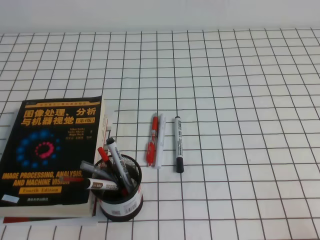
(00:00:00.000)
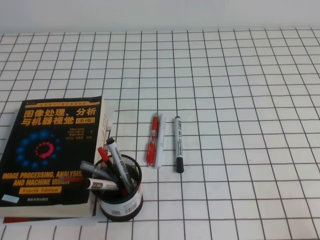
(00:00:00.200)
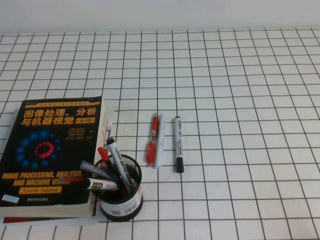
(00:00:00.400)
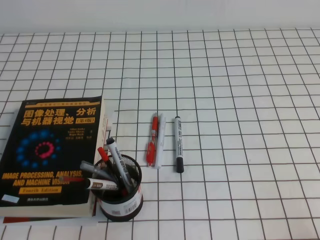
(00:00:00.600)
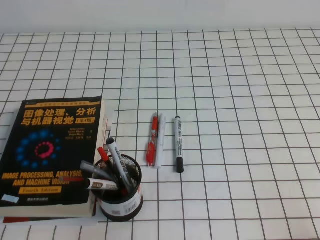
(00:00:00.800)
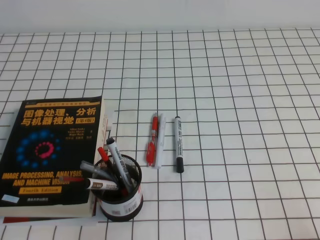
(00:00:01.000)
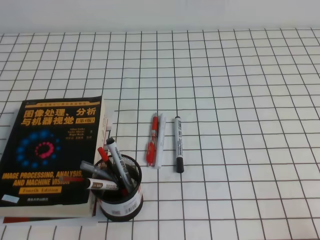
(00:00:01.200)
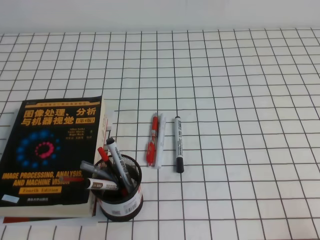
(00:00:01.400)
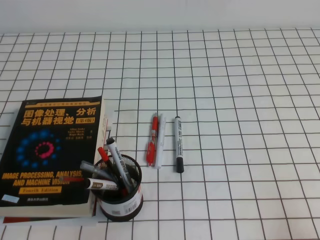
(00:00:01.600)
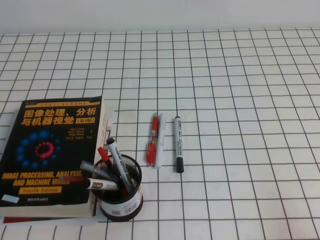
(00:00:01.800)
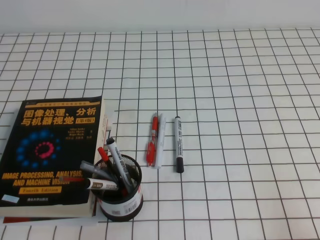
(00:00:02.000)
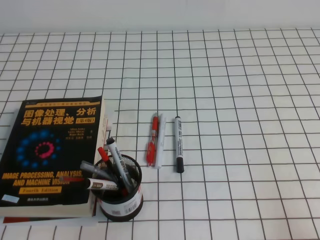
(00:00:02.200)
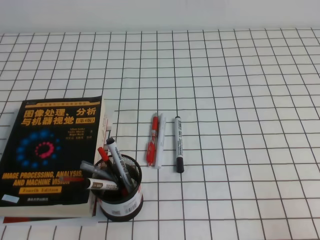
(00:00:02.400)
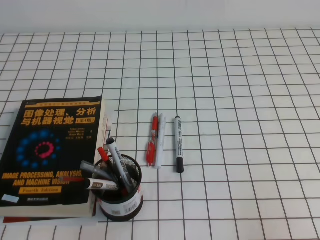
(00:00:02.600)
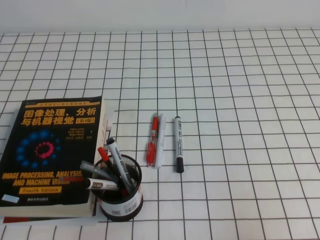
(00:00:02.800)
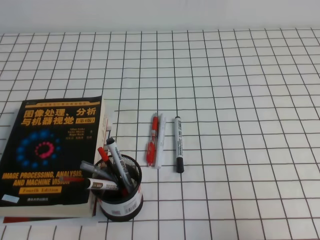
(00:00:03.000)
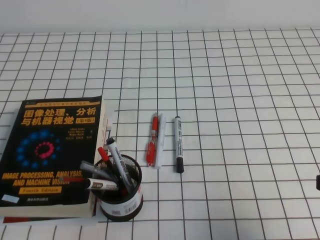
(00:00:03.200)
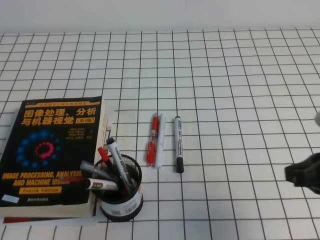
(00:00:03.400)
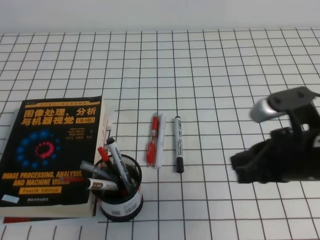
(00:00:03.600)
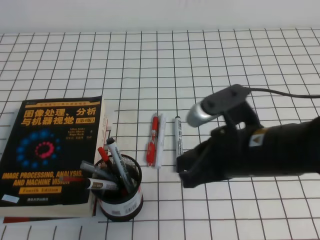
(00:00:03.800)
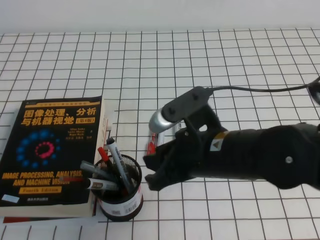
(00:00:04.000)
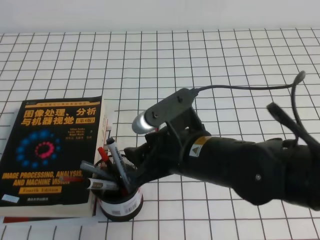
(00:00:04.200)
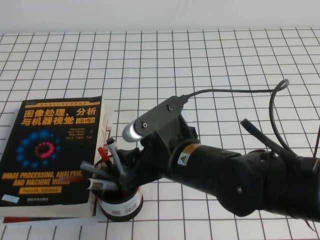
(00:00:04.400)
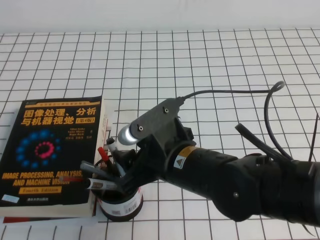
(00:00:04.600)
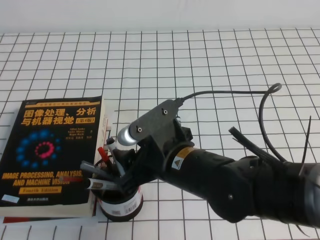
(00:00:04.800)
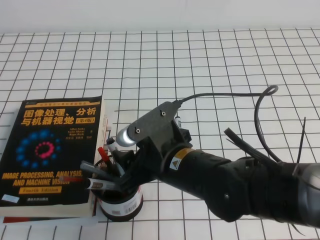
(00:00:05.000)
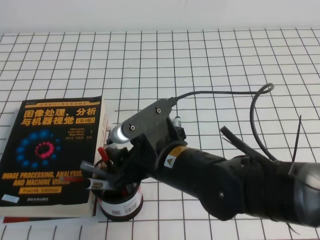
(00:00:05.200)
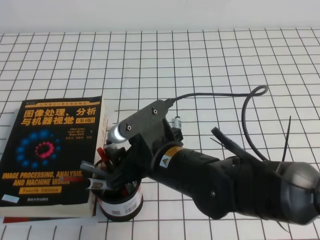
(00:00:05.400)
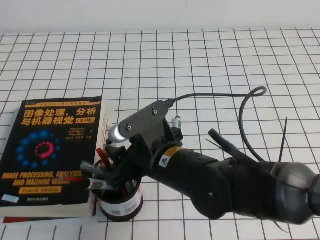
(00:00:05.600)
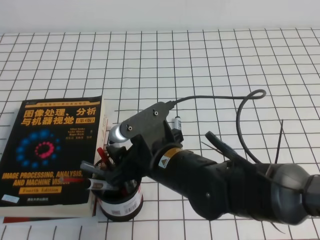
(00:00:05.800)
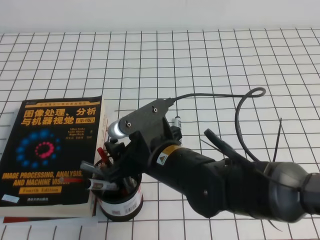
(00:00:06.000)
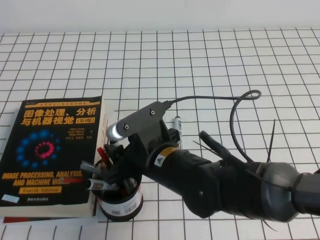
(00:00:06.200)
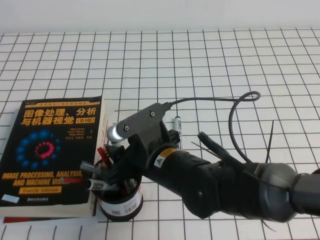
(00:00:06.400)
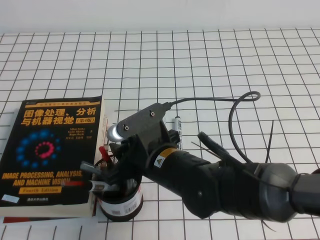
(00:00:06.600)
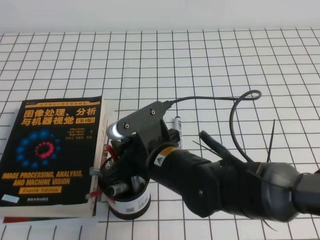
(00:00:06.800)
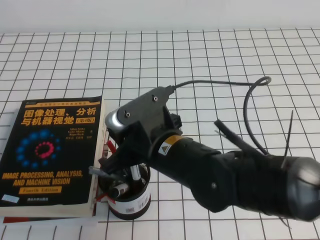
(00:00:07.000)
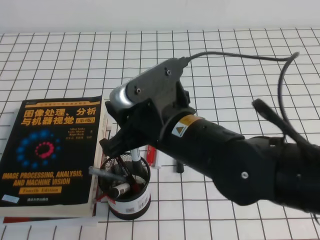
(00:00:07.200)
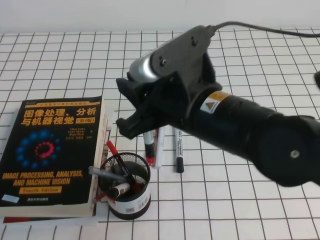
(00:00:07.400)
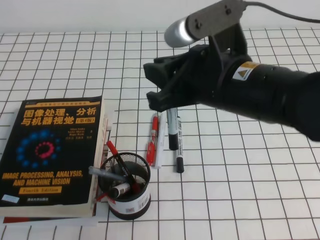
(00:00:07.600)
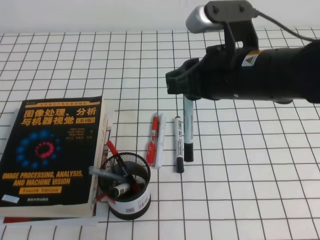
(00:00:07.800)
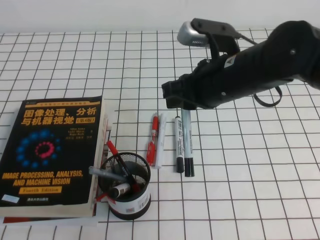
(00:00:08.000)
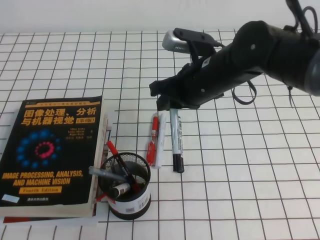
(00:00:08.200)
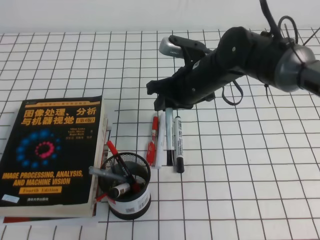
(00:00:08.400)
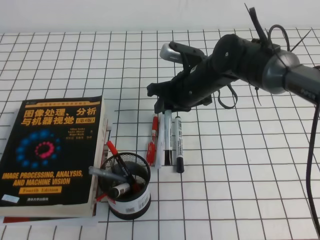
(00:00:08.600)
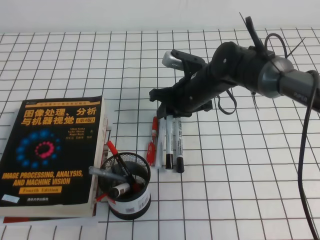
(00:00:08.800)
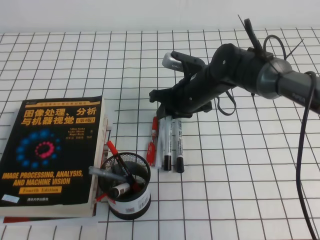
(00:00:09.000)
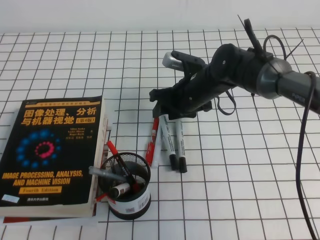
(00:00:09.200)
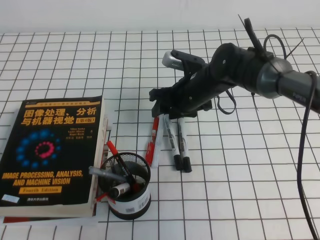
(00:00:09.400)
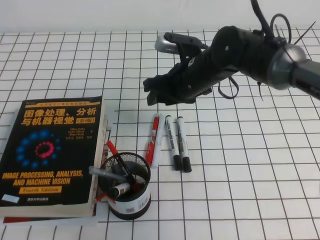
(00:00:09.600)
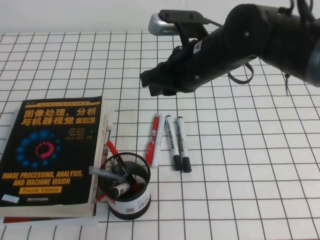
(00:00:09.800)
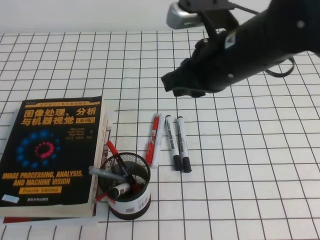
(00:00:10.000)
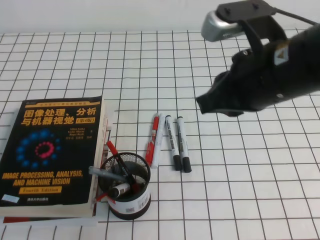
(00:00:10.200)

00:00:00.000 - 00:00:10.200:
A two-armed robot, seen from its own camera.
00:00:00.000 - 00:00:01.400: Neither gripper changes place.
00:00:01.400 - 00:00:03.000: The right gripper moves upward and forward, some 10 cm.
00:00:03.000 - 00:00:04.400: The right gripper shifts about 30 cm to the left and forward, and opens up.
00:00:04.400 - 00:00:05.800: The grippers move only a little.
00:00:05.800 - 00:00:07.200: The right gripper is displaced upward by roughly 5 cm, and closes its fingers.
00:00:07.200 - 00:00:08.800: The right gripper heads forward and downward, covering some 20 cm.
00:00:08.800 - 00:00:10.200: The right gripper is displaced backward, upward and to the right by about 25 cm, and opens and closes again.

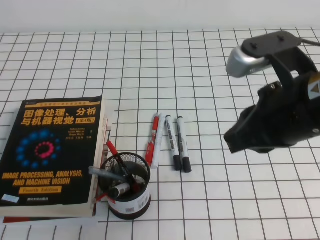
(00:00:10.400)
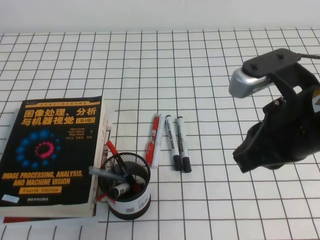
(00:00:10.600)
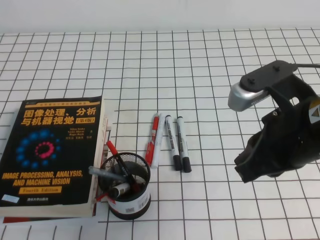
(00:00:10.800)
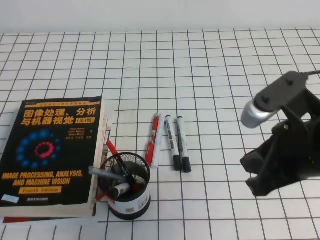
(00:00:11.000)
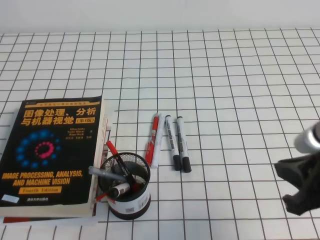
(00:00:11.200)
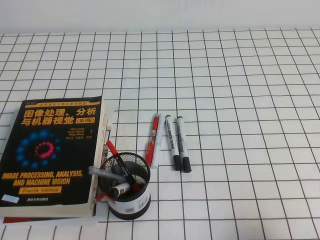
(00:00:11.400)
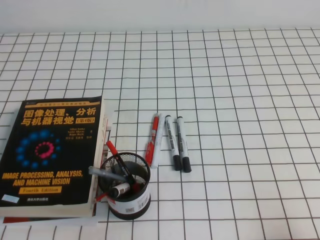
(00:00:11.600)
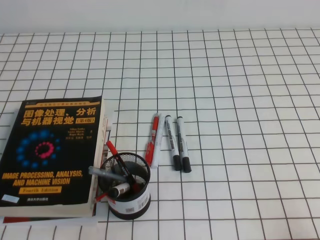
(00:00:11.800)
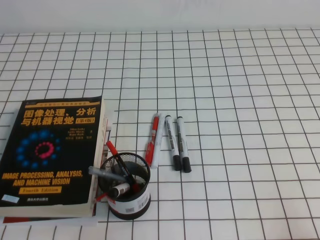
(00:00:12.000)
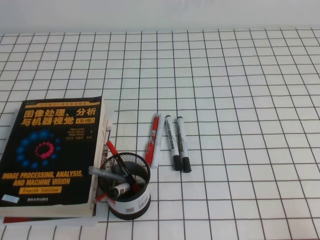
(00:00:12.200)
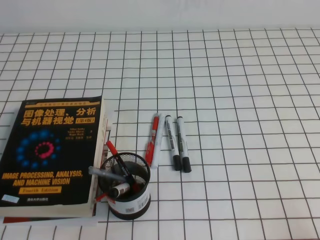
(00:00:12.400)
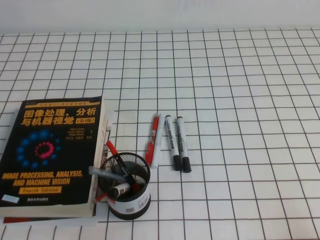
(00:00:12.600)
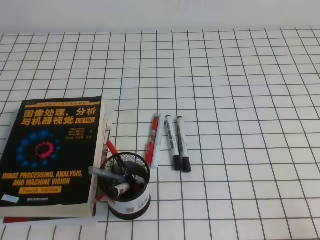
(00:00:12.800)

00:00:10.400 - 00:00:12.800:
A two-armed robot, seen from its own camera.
Step, 00:00:10.400 - 00:00:12.800: Pick up the pen from the pen holder.
00:00:10.400 - 00:00:11.600: The right gripper is displaced to the right, downward and backward by approximately 25 cm.
